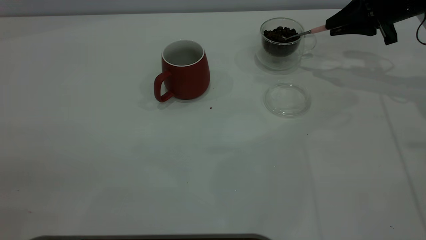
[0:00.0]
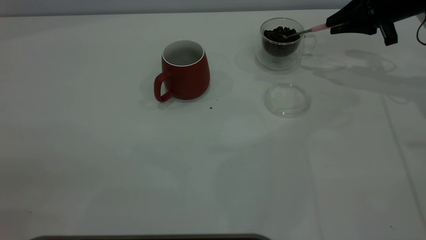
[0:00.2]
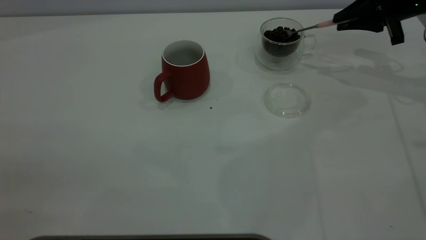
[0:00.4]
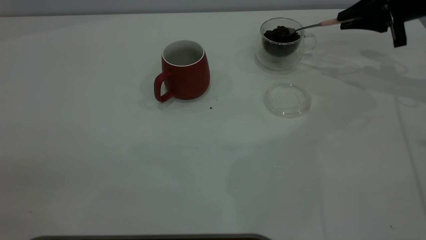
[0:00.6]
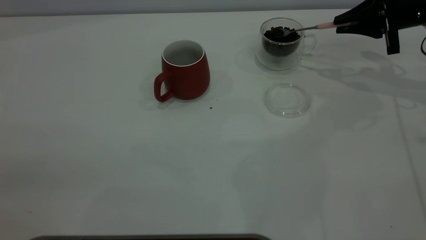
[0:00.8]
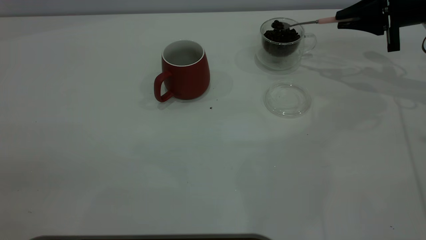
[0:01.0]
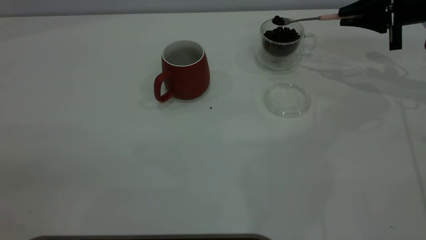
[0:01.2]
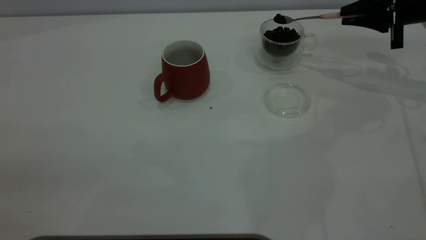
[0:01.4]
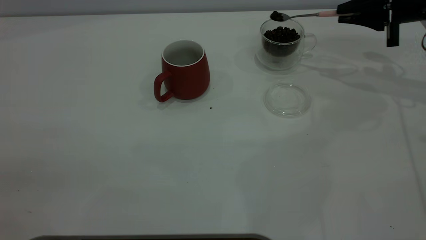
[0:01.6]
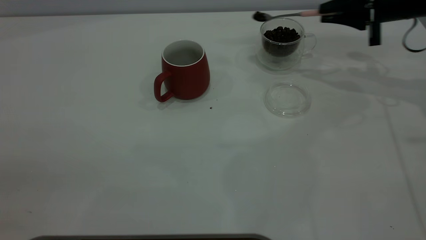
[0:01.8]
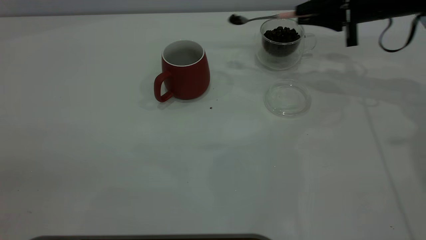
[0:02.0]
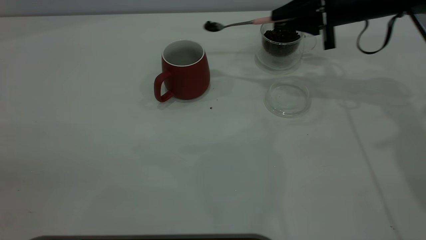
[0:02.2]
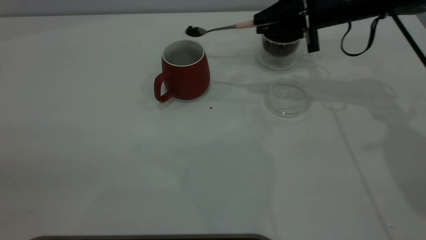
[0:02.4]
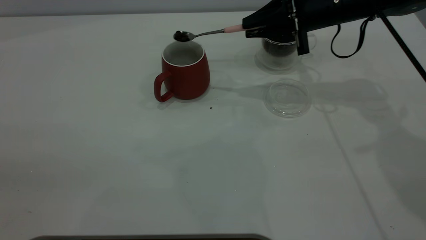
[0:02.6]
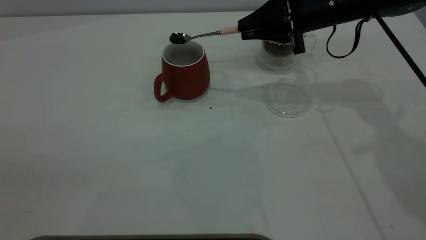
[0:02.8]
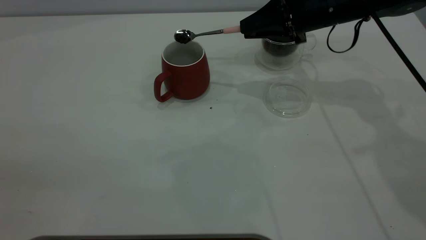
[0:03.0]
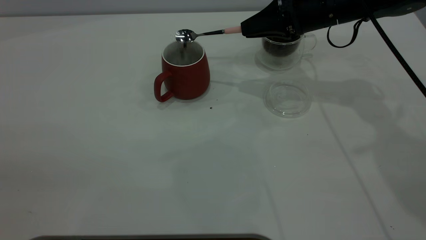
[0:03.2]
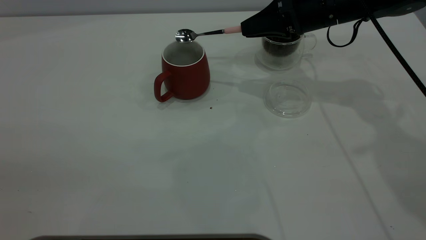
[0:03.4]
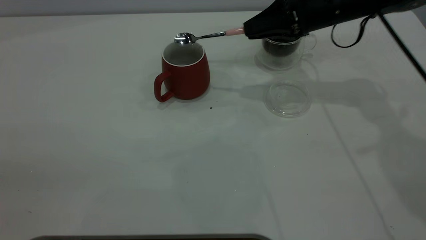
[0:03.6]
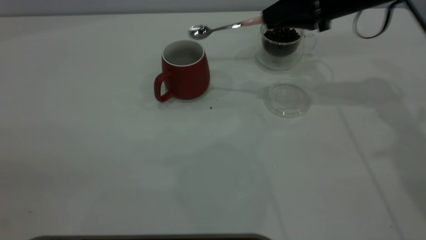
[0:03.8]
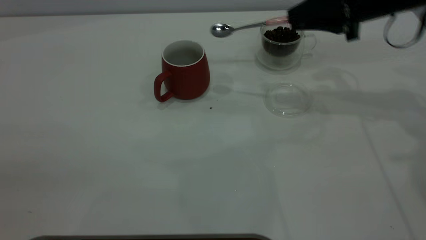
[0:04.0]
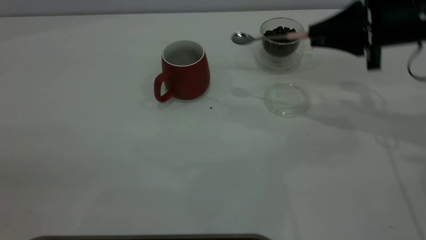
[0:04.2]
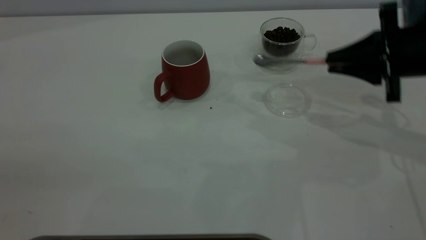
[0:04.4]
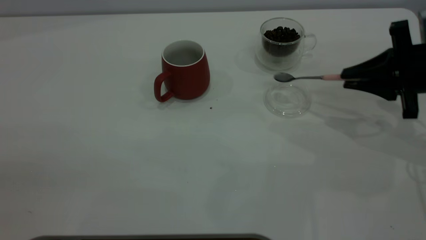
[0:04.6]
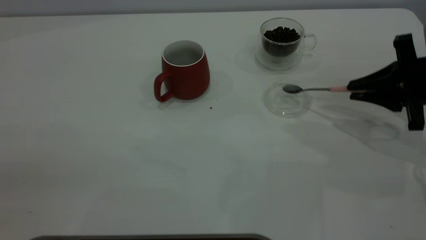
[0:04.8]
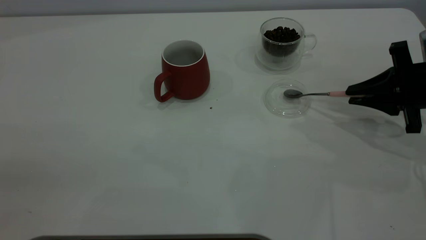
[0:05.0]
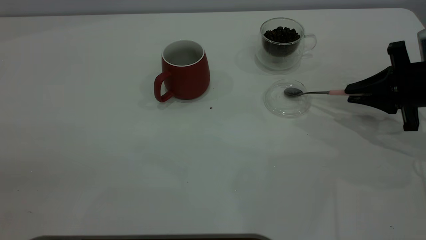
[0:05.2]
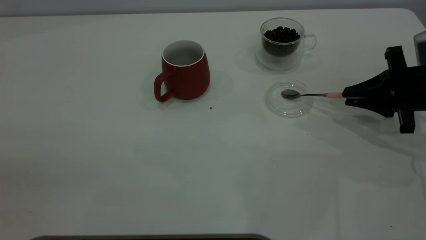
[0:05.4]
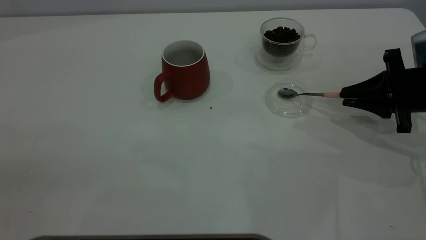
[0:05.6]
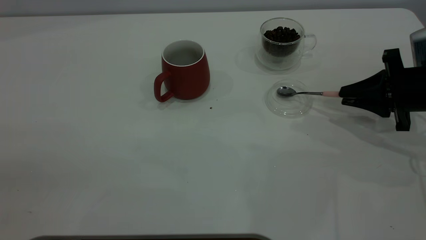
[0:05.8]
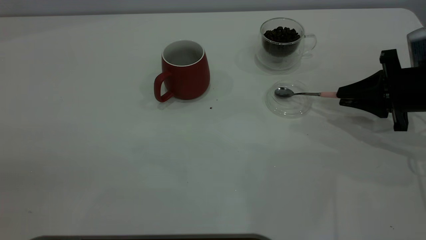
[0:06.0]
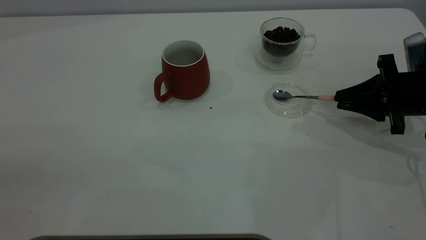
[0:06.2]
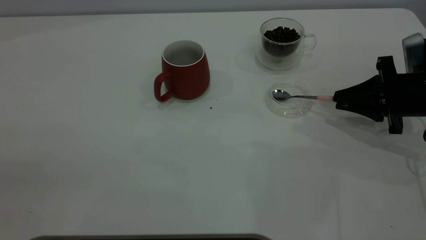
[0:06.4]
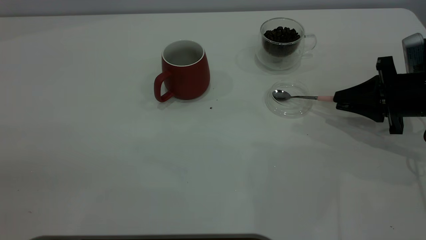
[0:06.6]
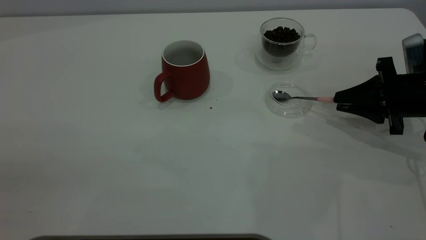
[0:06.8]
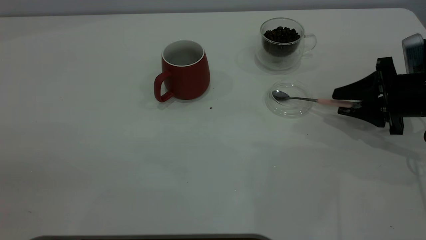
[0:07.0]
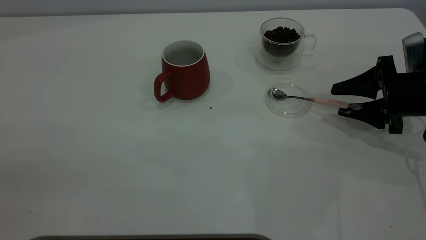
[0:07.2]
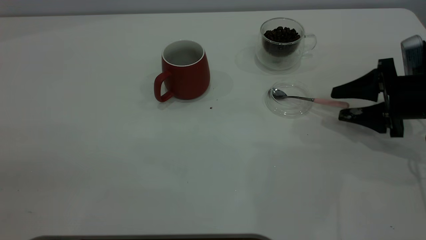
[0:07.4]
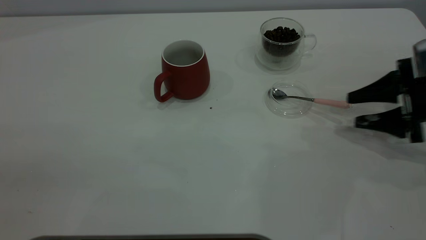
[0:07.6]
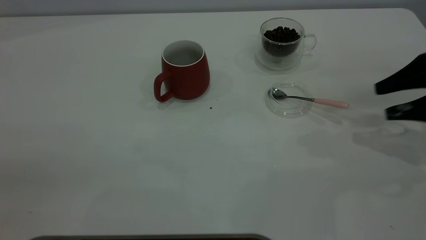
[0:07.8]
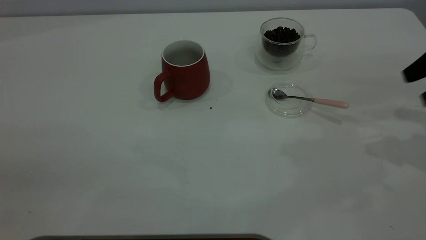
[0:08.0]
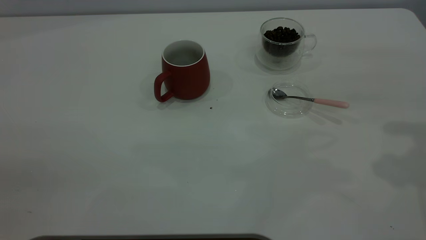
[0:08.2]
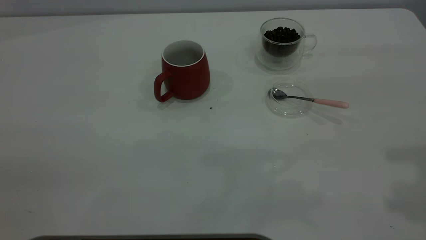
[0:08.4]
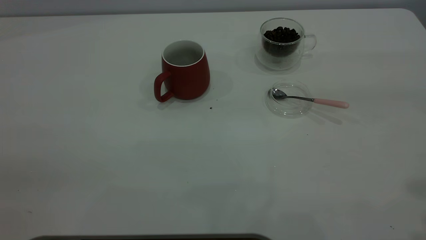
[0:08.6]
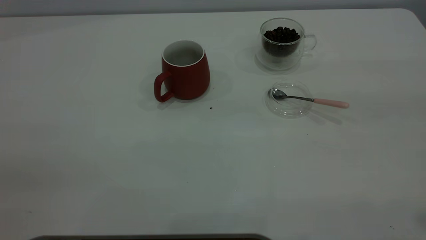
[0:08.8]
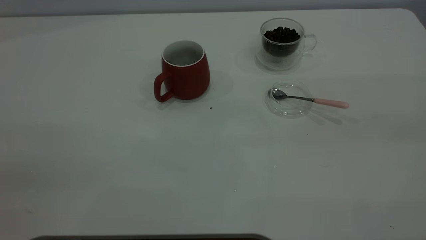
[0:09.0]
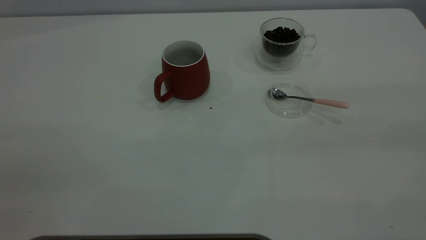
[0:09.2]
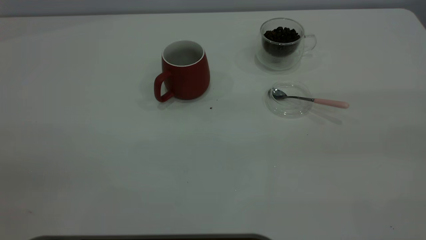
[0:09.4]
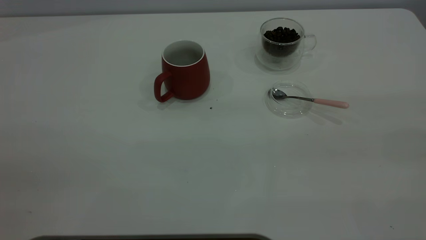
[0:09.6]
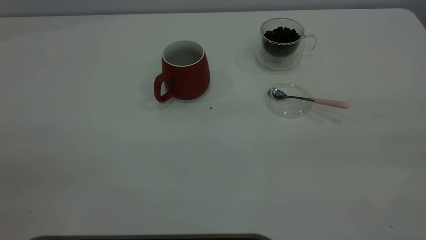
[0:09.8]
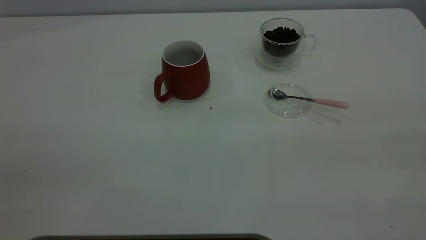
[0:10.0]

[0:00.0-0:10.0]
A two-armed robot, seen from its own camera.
Task of the whole recording: the left gripper place the red cup in the center of the table, the right gripper take the pink spoon from the cup lid and scoop out the coffee beans from the coffee cup and put them into the red cup, the right gripper put the spoon back into the cup lid.
Step, 0:00.0 to 0:03.4: Scoop a spoonful of beans into the cup.
Step, 0:03.6 to 0:07.6: Place the spoon back in its original place.
0:00.0 to 0:01.4: The grippers move only a little.
0:01.4 to 0:02.8: The right gripper goes roughly 15 cm to the left.
0:02.8 to 0:04.2: The right gripper moves to the right and backward, some 15 cm.
0:04.2 to 0:05.8: The right gripper goes some 10 cm downward.
0:05.8 to 0:07.2: The right gripper opens up.
0:07.2 to 0:08.6: The right gripper goes about 40 cm upward and backward.

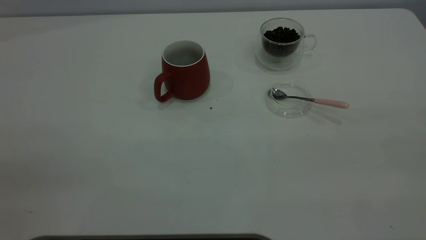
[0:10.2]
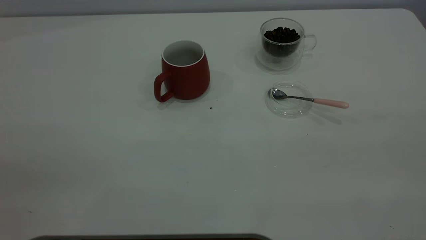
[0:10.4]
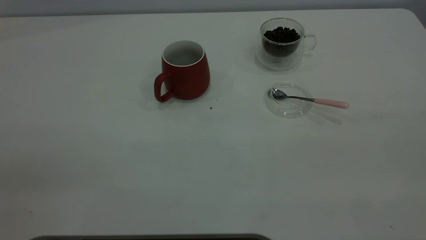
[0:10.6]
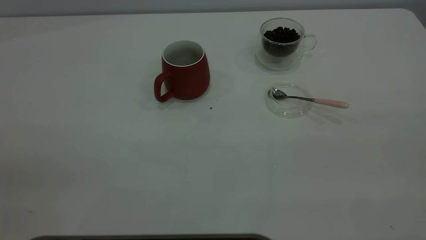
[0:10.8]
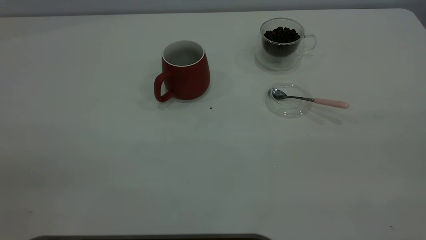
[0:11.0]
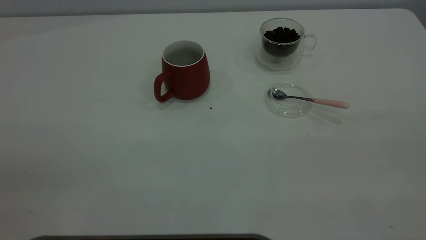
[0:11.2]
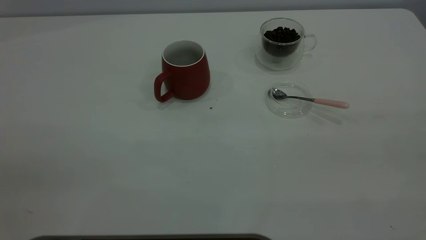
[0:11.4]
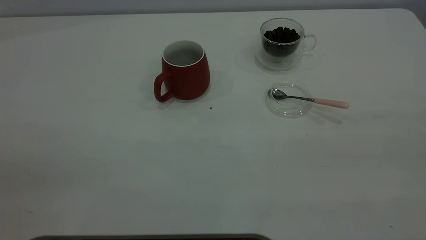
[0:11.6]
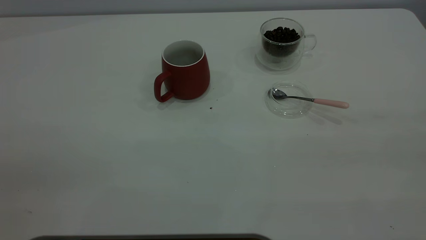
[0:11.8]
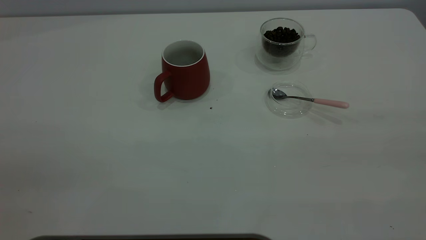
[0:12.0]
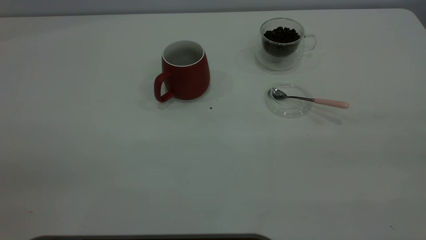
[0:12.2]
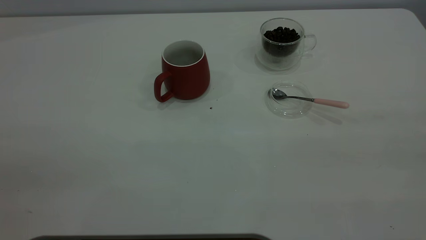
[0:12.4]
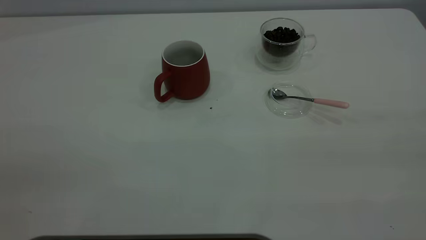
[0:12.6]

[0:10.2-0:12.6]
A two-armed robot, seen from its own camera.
Task of the whole recording: the left gripper place the red cup in the center of the table, the right gripper take the pink spoon from the cup lid and scoop out the coffee beans from the coffee cup and put them into the red cup, the right gripper put the spoon back into the cup lid.
0:11.4 to 0:12.6: Both grippers stay about where they are.
